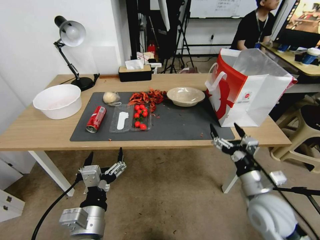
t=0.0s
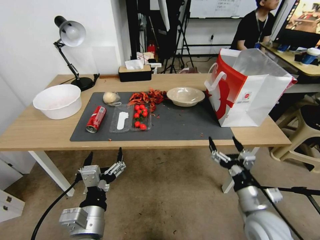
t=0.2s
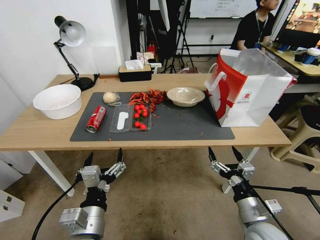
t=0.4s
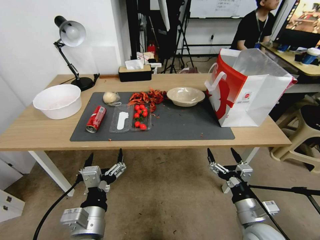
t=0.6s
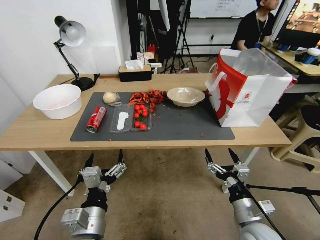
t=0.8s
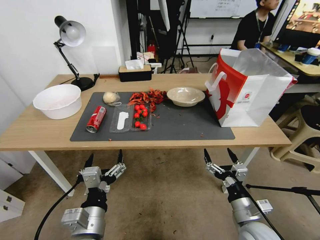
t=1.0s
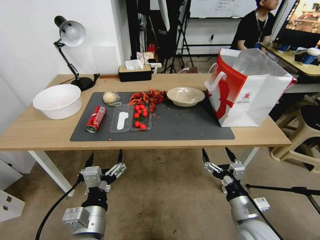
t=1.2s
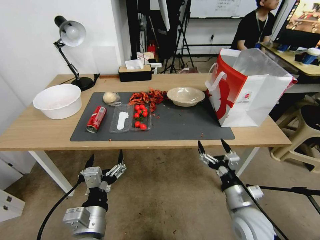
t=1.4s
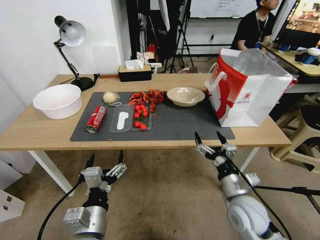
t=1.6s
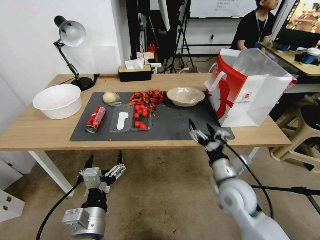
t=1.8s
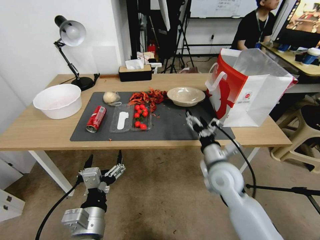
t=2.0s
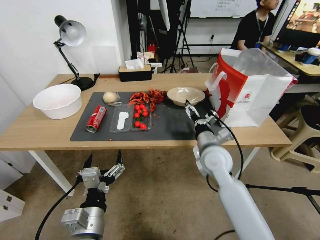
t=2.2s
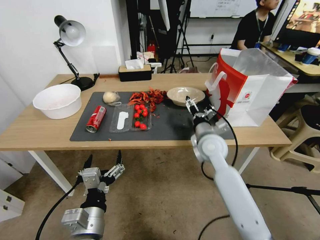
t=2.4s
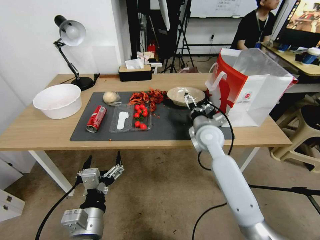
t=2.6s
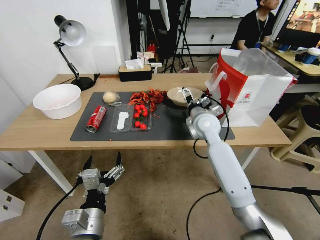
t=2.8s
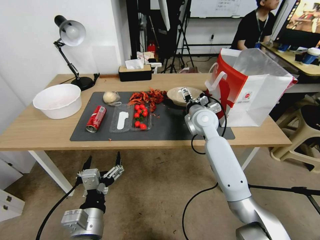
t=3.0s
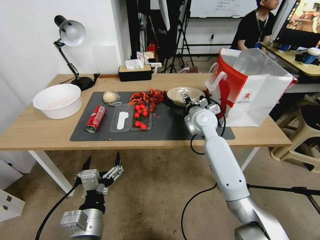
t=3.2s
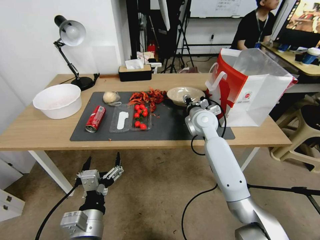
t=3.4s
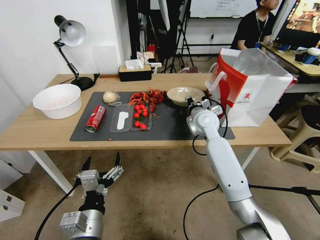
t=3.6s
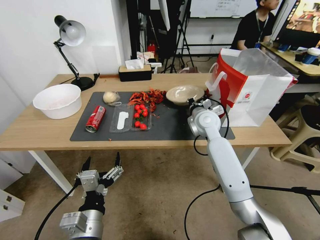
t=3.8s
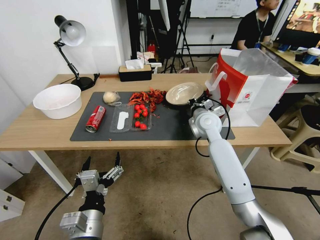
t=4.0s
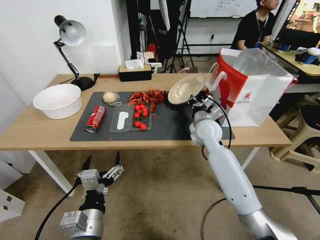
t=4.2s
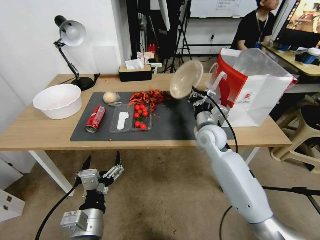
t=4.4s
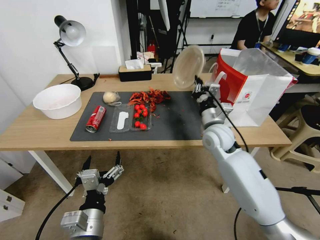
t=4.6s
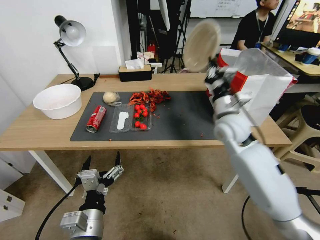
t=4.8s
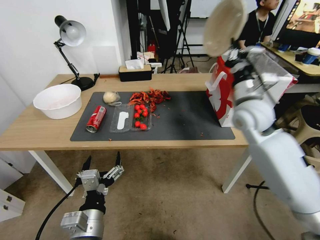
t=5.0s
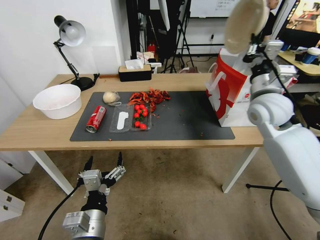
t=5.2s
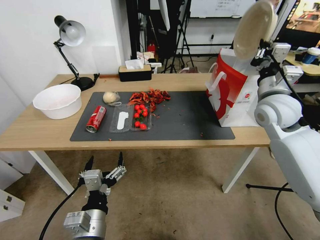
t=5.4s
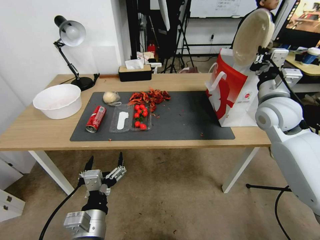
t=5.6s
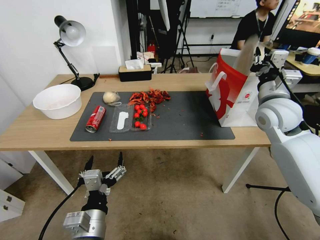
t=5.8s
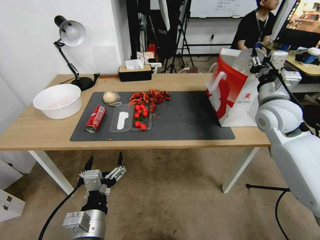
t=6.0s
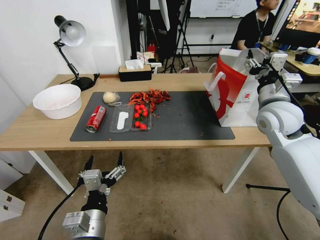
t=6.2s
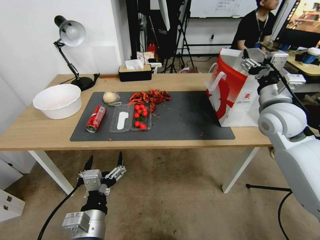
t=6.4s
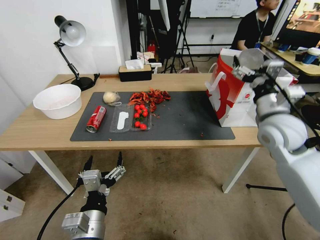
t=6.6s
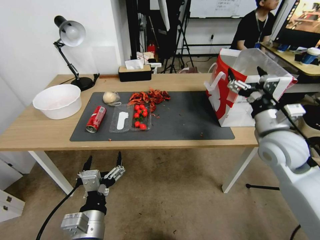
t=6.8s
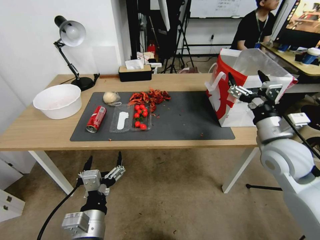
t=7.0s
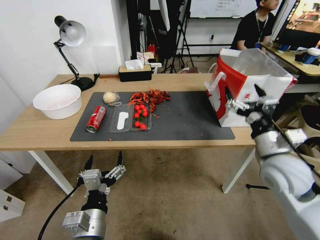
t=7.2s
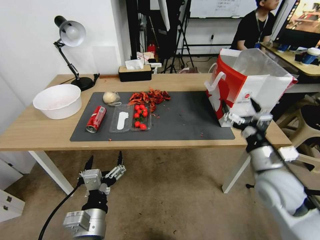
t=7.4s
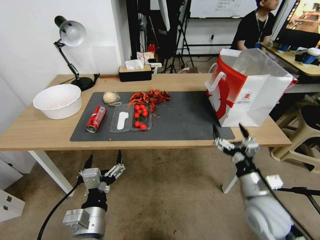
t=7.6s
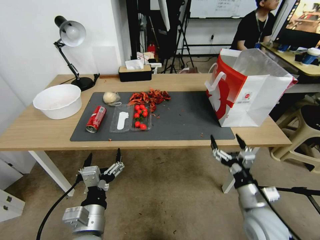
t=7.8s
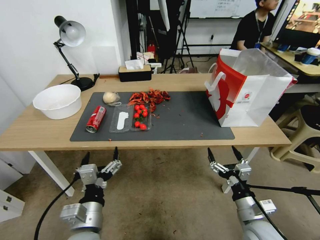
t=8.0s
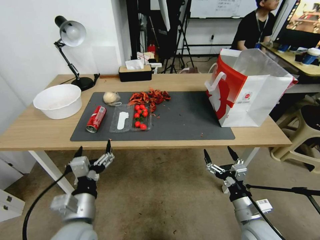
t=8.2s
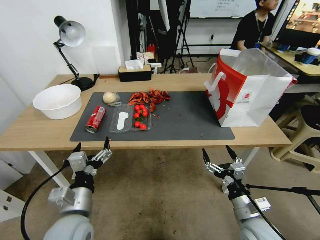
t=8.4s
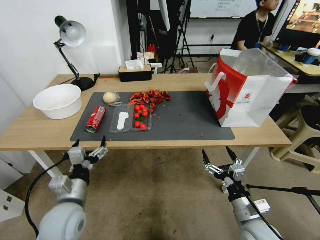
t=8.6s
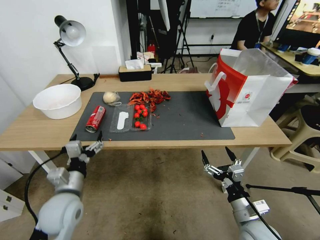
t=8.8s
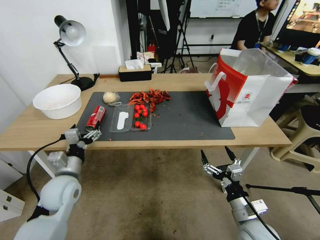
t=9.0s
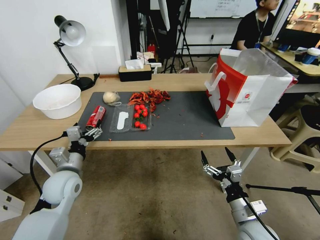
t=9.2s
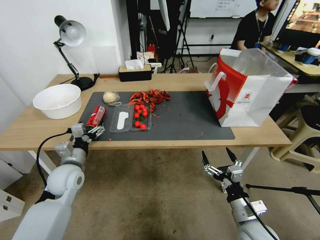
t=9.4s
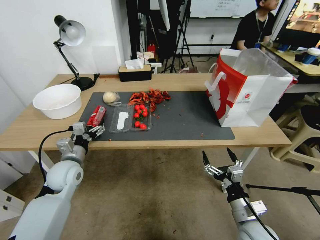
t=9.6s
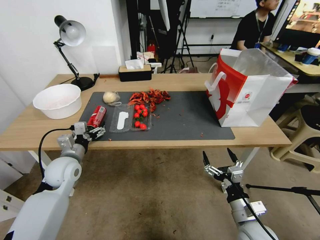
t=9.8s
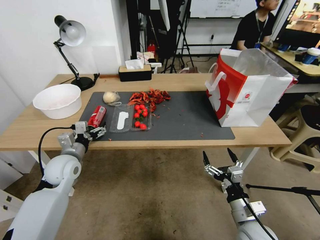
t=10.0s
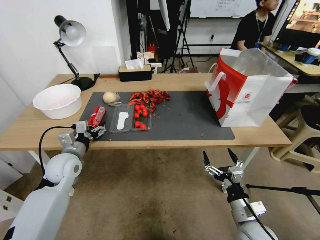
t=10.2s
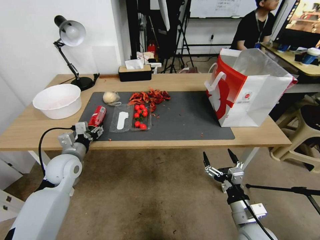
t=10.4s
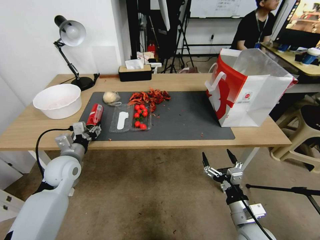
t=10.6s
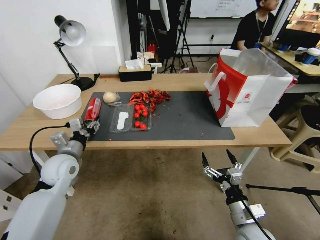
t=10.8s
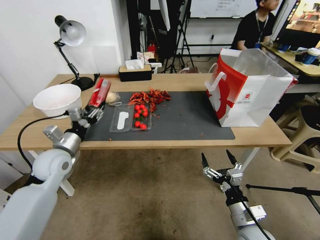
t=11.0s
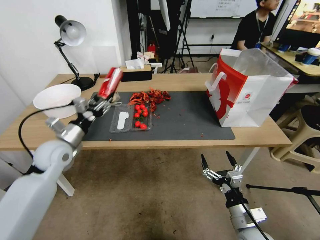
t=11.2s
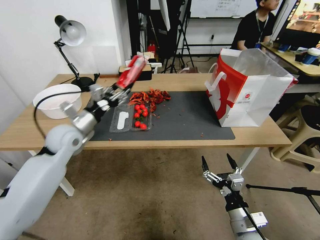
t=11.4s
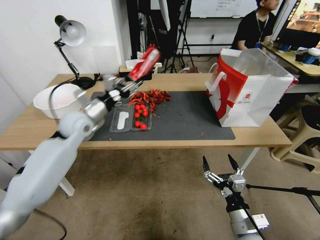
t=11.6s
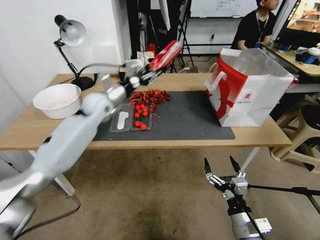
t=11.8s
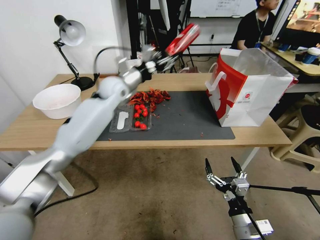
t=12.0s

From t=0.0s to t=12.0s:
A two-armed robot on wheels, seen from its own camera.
From t=0.0s to t=1.6s: The right gripper goes approximately 5 cm downward.
From t=1.6s to t=3.0s: The right gripper travels forward and upward by approximately 30 cm.
From t=3.0s to t=4.4s: The right gripper closes.
From t=4.4s to t=6.0s: The right gripper heads to the right and upward, covering some 20 cm, and opens up.
From t=6.0s to t=7.6s: The right gripper heads backward and downward, covering roughly 20 cm, and opens.
From t=7.6s to t=9.0s: The left gripper is displaced forward and to the left by some 20 cm. The right gripper goes approximately 15 cm downward and backward.
From t=9.0s to t=10.4s: The left gripper shifts about 5 cm forward, and closes its fingers.
From t=10.4s to t=12.0s: The left gripper heads forward, upward and to the right, covering approximately 30 cm.

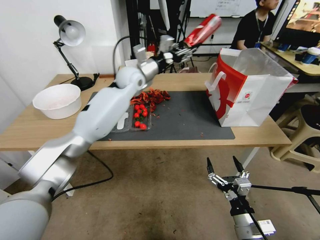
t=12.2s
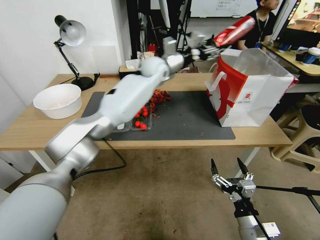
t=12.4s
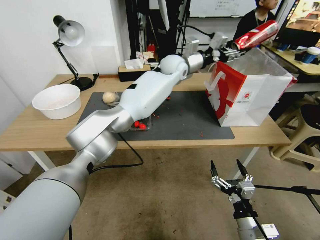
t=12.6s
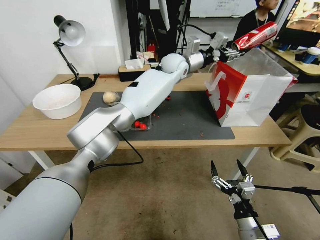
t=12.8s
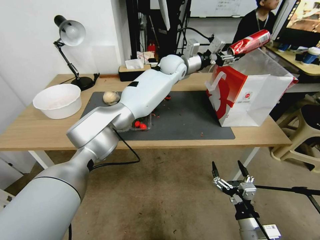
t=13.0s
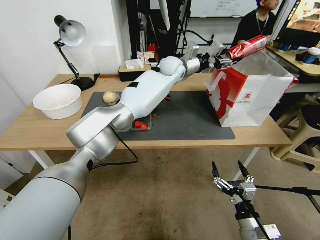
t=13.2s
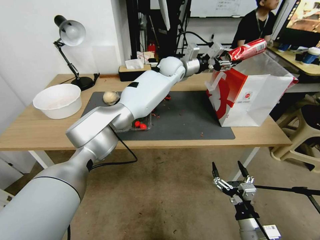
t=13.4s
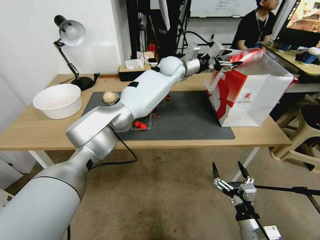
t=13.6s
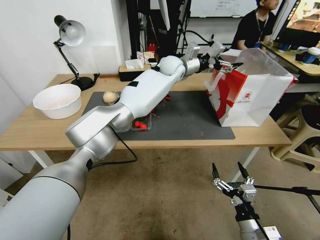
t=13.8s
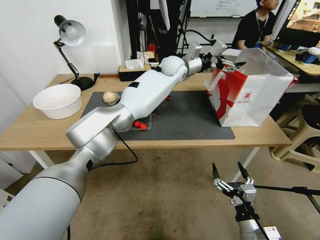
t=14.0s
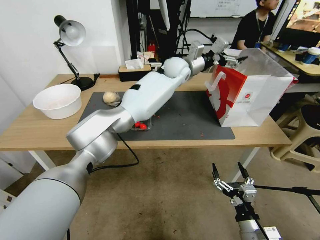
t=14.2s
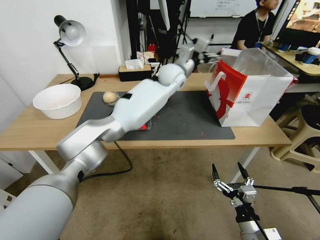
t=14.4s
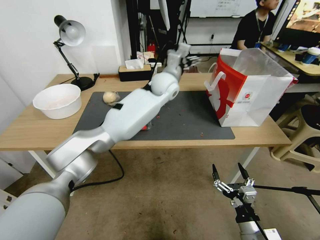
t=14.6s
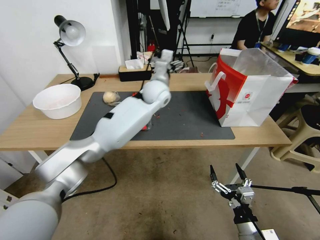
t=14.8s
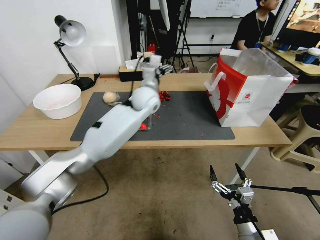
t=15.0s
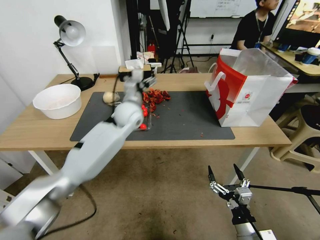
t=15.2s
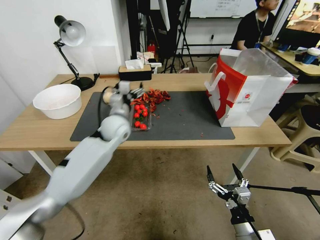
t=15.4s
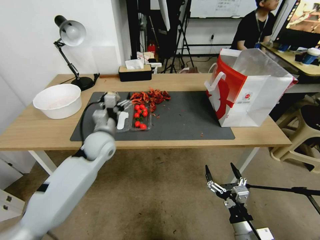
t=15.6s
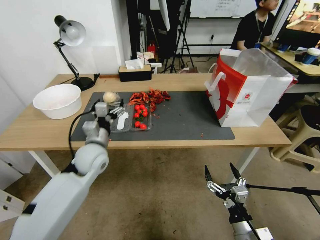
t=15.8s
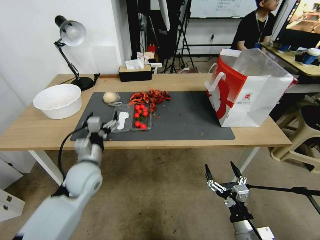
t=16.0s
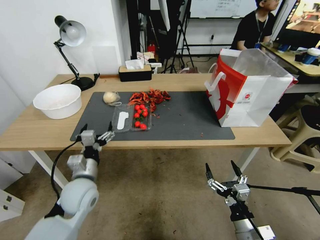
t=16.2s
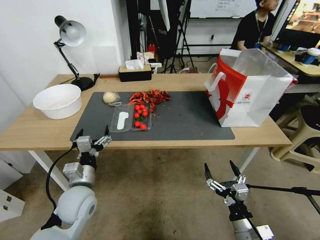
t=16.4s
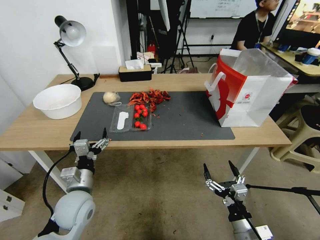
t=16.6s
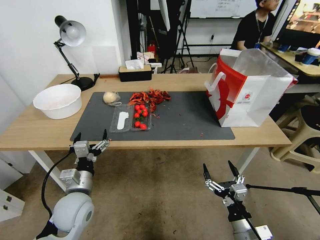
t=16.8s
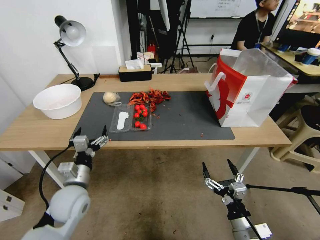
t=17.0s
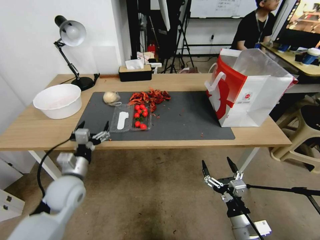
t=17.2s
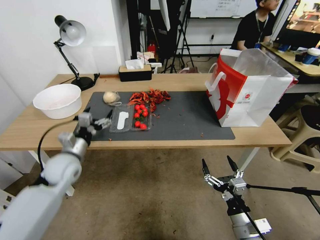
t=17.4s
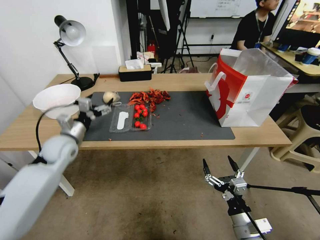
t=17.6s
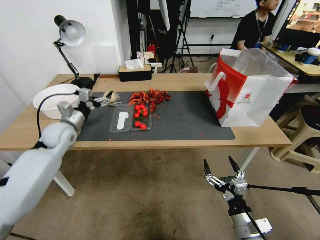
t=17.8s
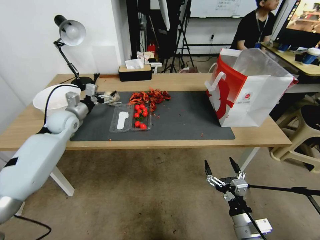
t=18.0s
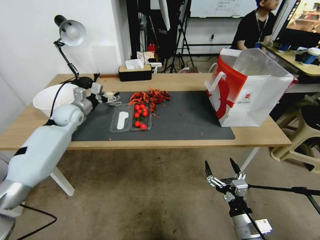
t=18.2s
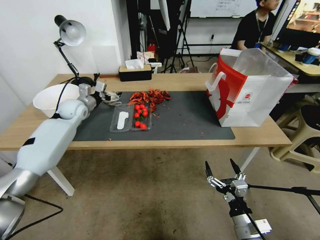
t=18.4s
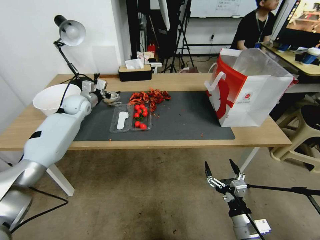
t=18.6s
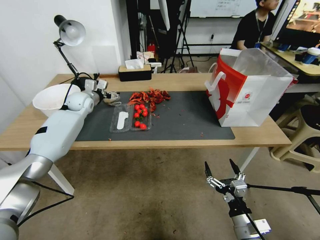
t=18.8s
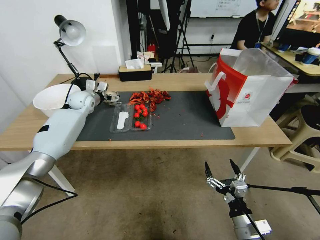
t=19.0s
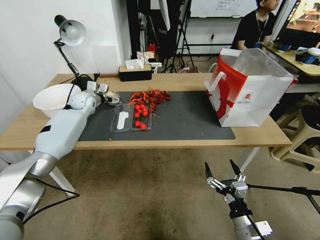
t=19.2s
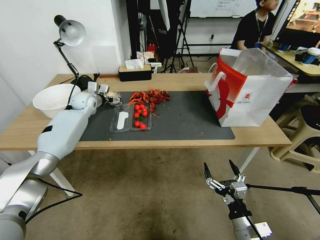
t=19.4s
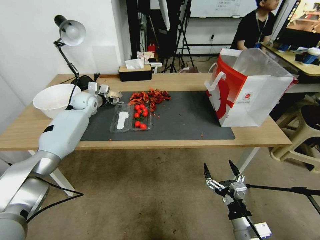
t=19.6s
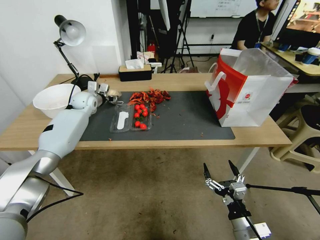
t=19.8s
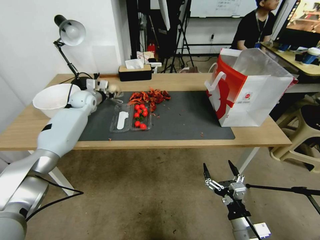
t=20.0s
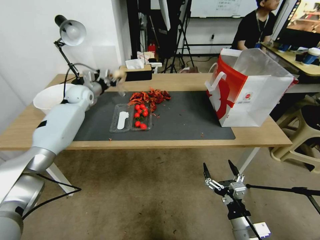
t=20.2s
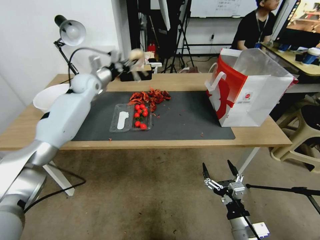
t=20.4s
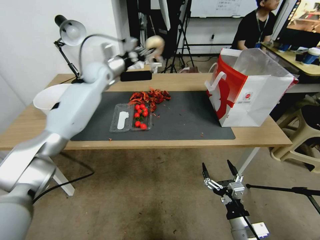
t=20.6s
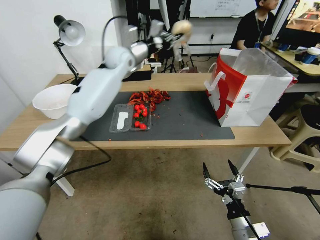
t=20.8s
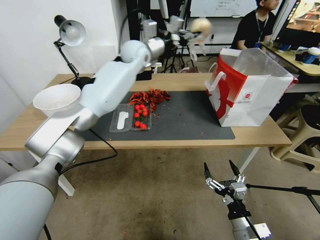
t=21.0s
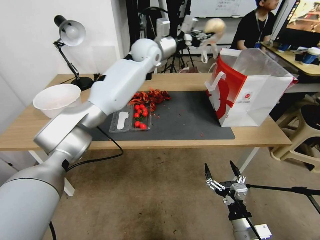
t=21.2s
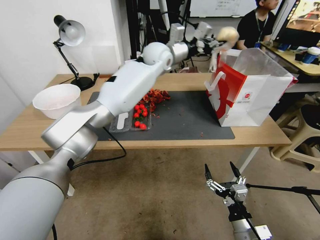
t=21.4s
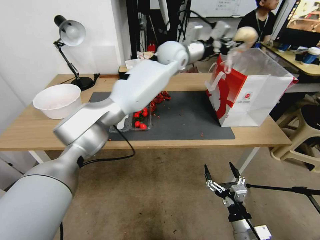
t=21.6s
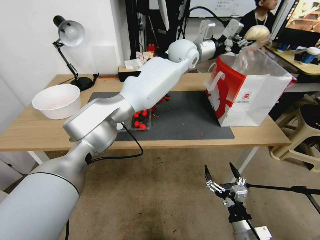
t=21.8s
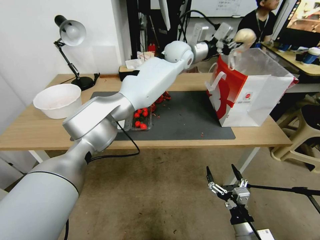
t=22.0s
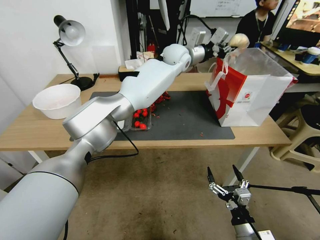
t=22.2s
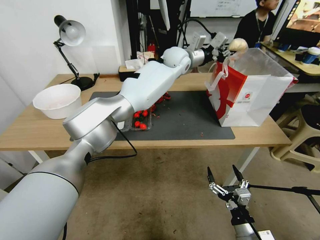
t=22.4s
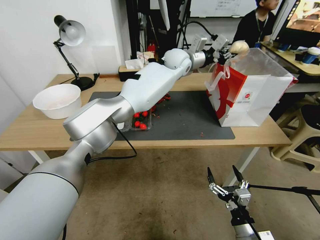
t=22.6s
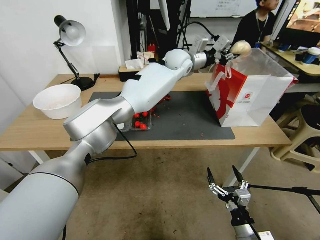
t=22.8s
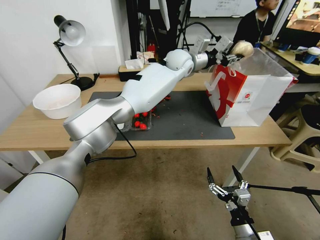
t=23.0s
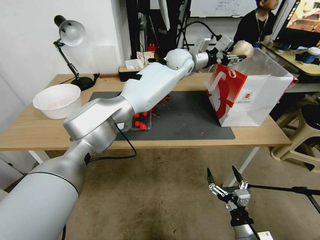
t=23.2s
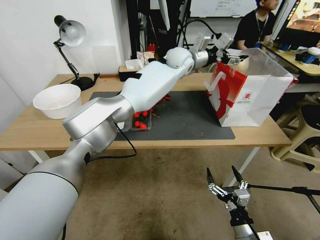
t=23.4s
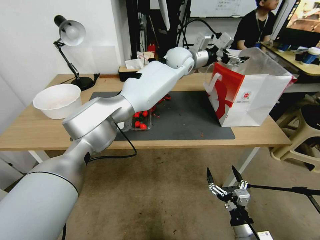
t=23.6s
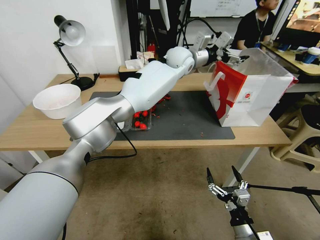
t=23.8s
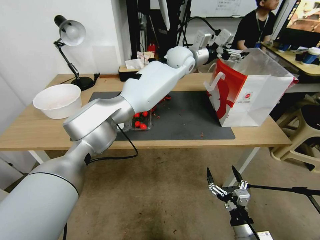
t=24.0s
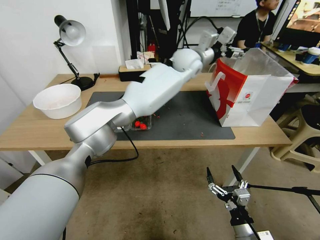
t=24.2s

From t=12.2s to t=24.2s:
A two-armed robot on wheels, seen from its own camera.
From t=12.2s to t=13.8s: The left gripper is displaced to the right by some 15 cm, and opens up.
From t=13.8s to t=15.2s: The left gripper shifts approximately 20 cm to the left, backward and downward.
From t=15.2s to t=16.6s: The left gripper moves backward, to the left and downward, some 30 cm.
From t=16.6s to t=18.2s: The left gripper moves forward, some 30 cm.
From t=18.2s to t=19.8s: The left gripper travels forward by some 10 cm, and closes.
From t=19.8s to t=21.2s: The left gripper shifts about 30 cm to the right and upward, and closes.
From t=21.2s to t=22.6s: The left gripper travels to the right by about 15 cm.
From t=22.6s to t=24.2s: The left gripper opens up.
